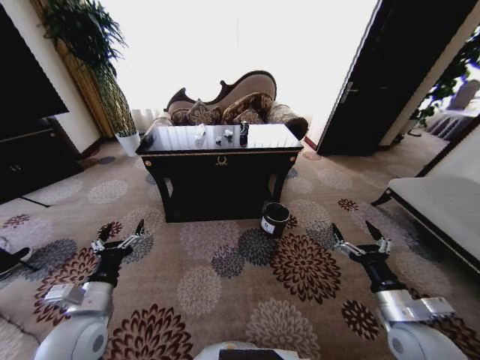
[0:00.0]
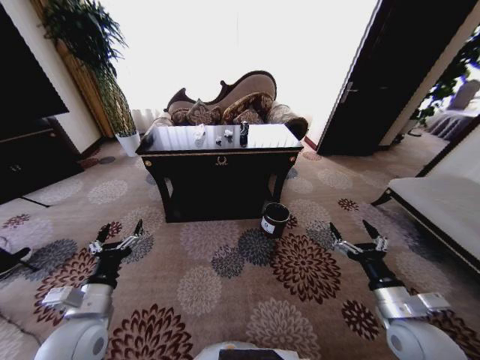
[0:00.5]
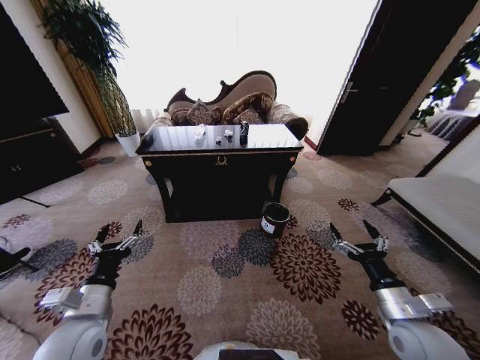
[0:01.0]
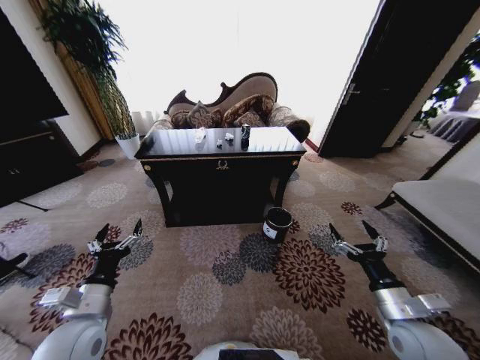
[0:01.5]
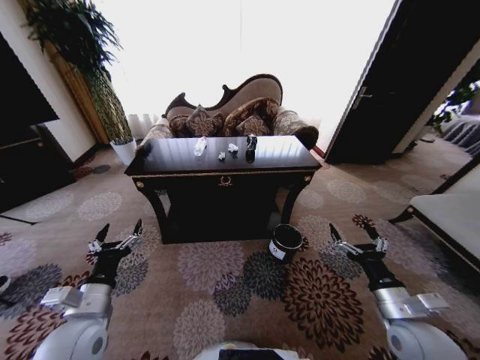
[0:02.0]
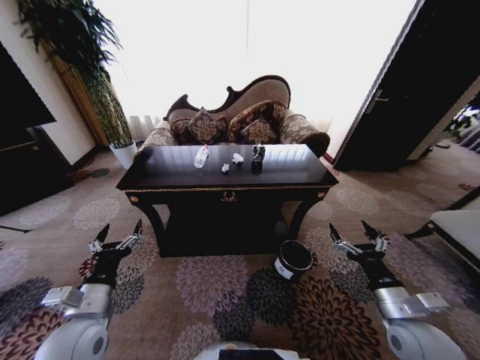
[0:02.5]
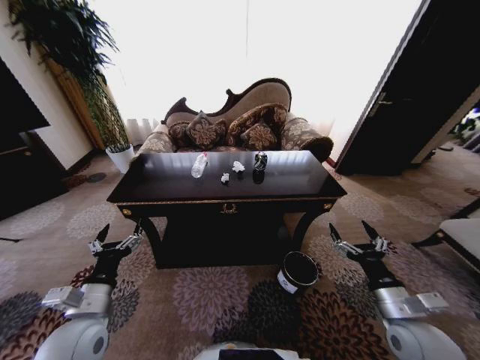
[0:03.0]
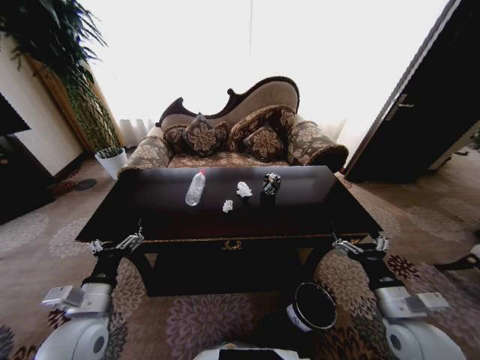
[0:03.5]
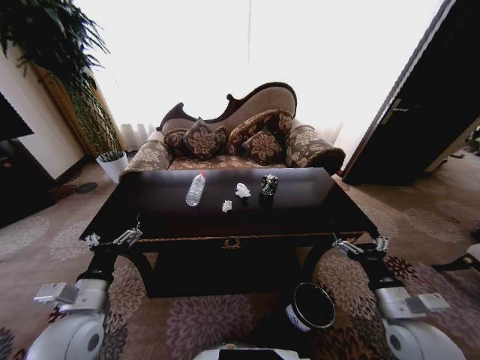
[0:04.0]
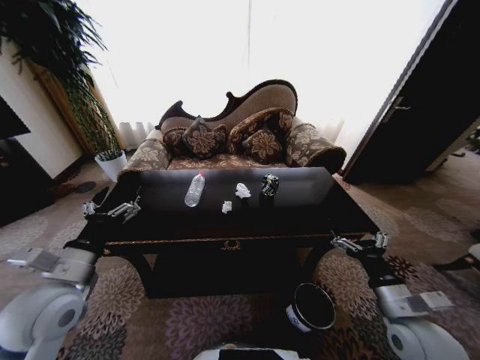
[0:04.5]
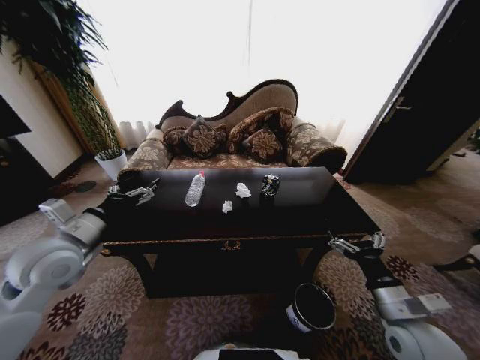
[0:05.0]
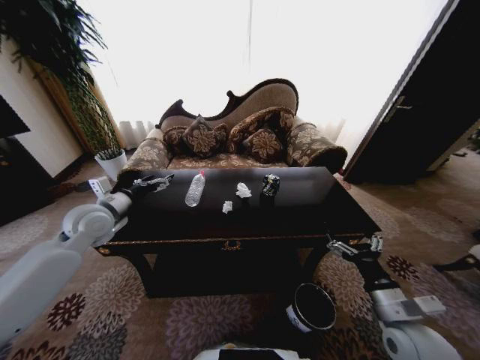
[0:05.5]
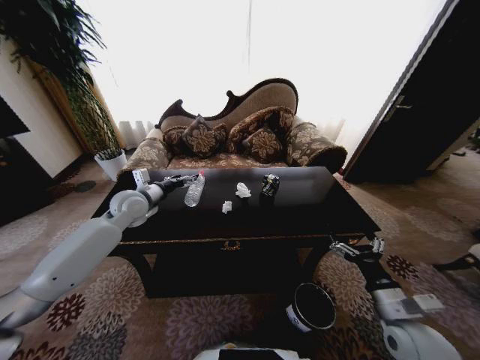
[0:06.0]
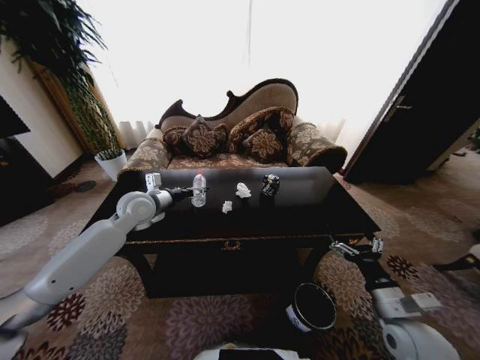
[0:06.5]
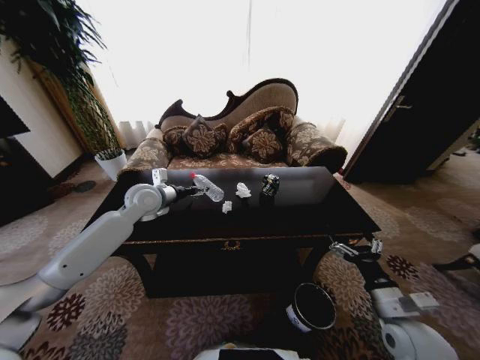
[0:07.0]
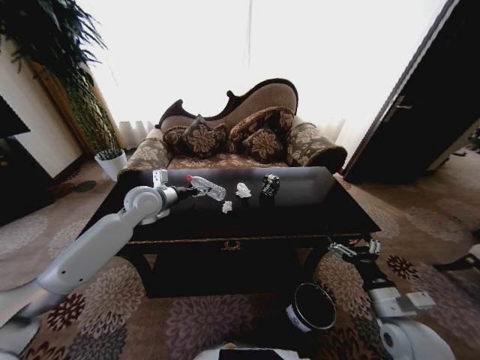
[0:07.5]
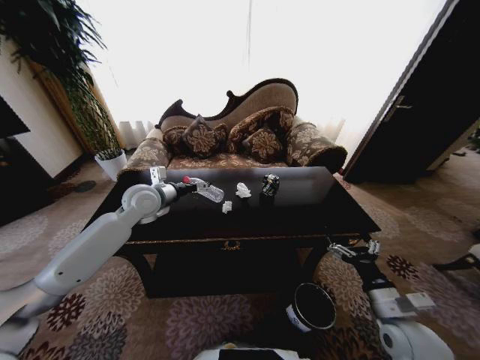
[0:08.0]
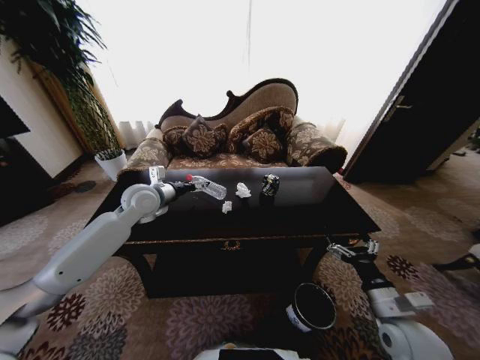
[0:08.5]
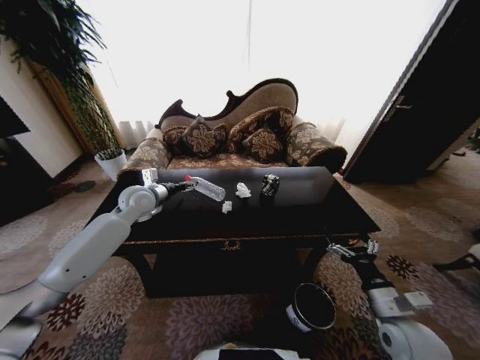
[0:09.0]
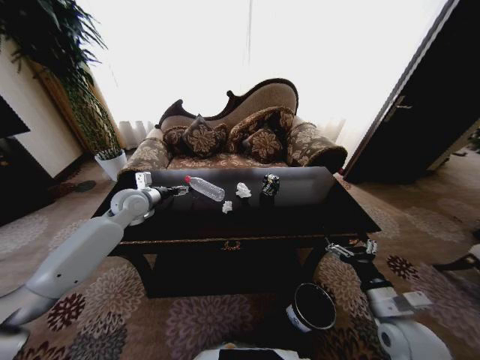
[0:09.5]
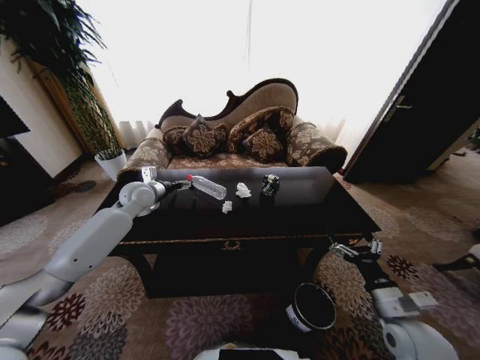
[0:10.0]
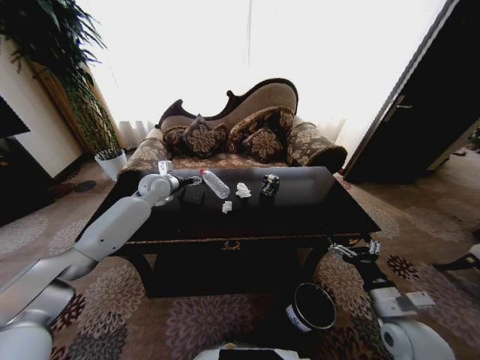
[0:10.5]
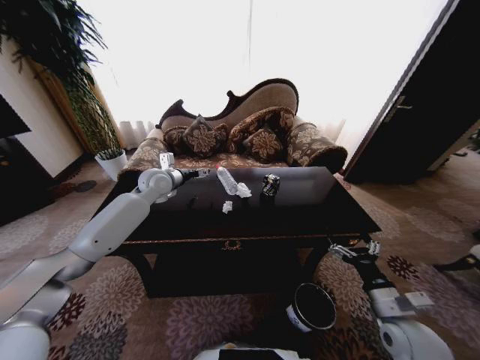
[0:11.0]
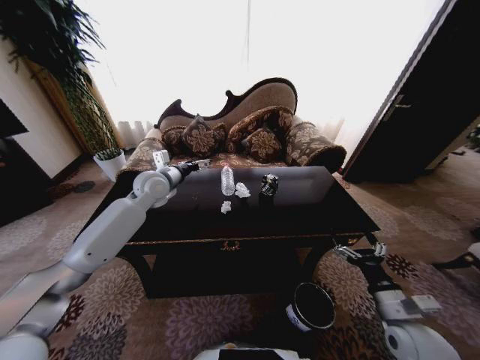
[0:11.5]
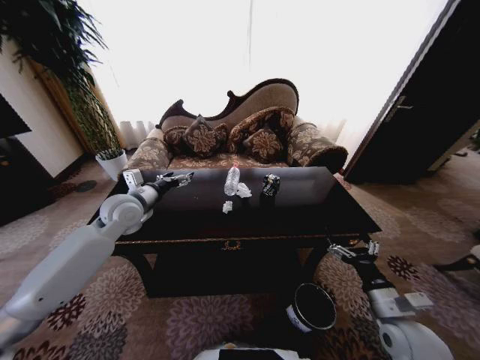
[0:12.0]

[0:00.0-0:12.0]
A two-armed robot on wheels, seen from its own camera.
Task of the whole recording: Move to the front of the table and place the trash on the table into the trash bin.
0:04.0 to 0:06.0: The left gripper shifts approximately 30 cm forward.
0:06.0 to 0:08.0: The left gripper changes place by about 5 cm.
0:08.0 to 0:10.0: The left gripper is displaced forward by approximately 5 cm.
0:10.0 to 0:12.0: The left gripper heads backward, covering roughly 10 cm.

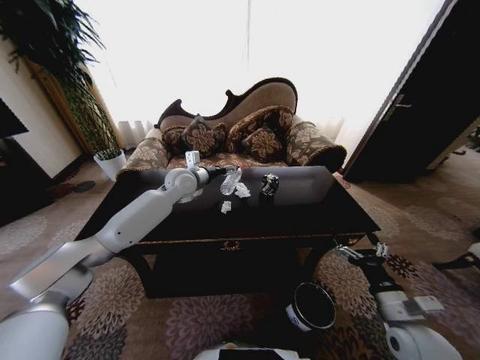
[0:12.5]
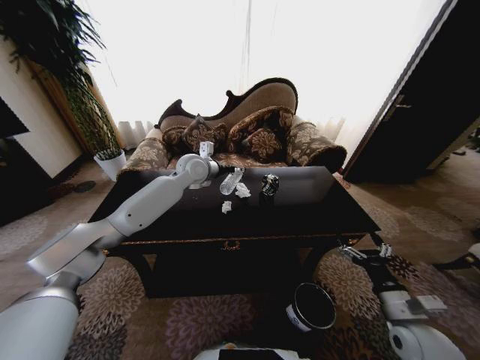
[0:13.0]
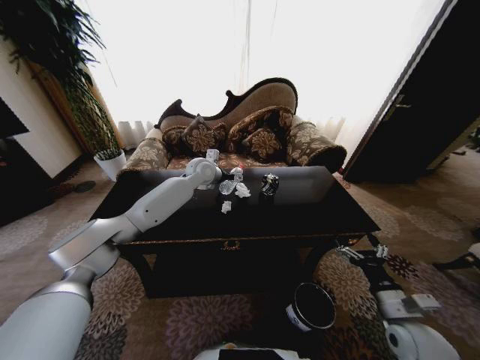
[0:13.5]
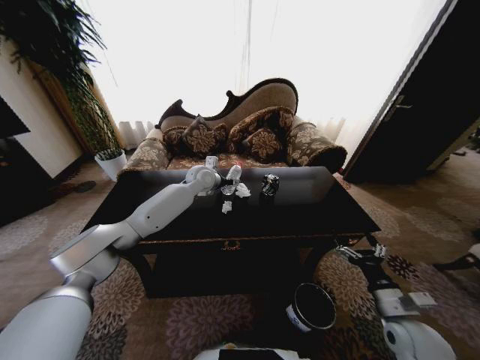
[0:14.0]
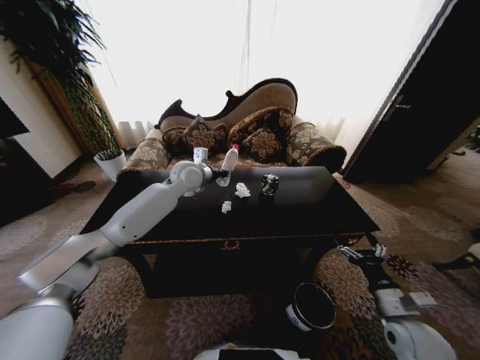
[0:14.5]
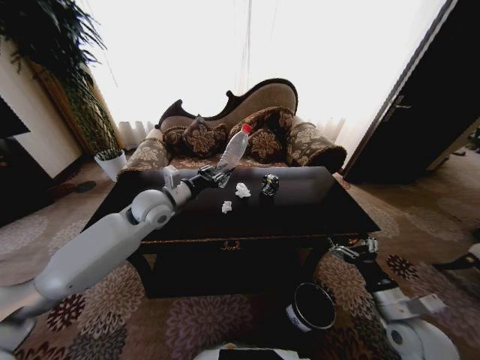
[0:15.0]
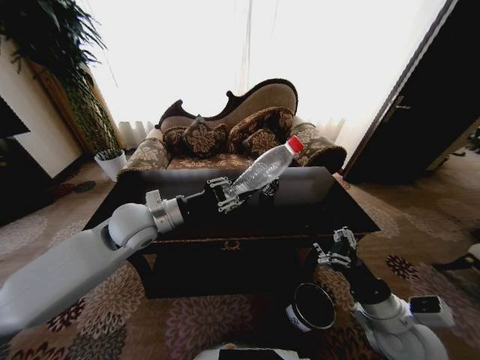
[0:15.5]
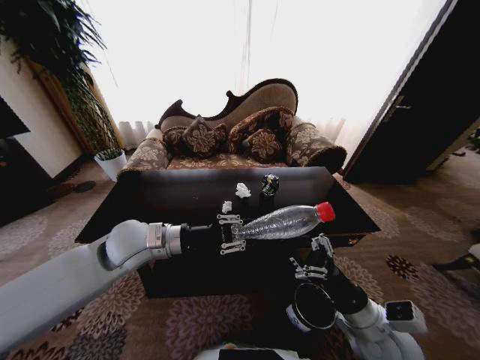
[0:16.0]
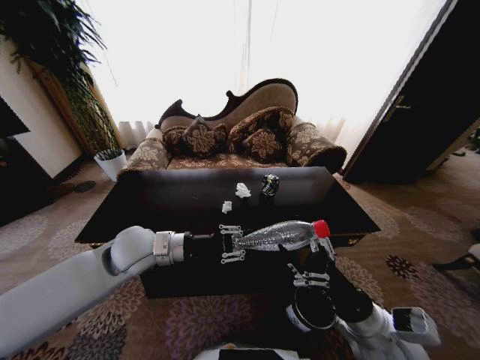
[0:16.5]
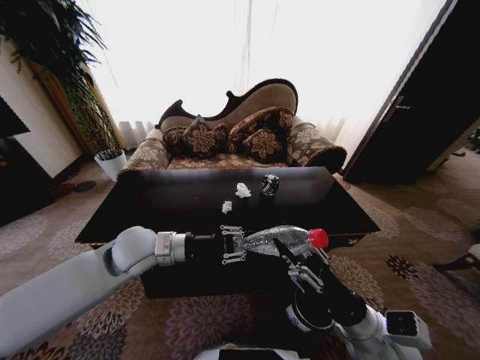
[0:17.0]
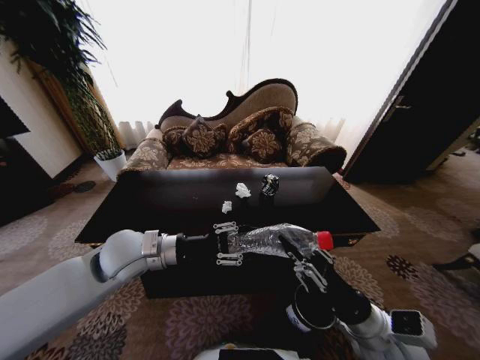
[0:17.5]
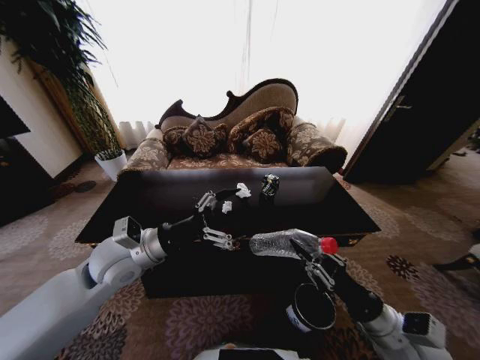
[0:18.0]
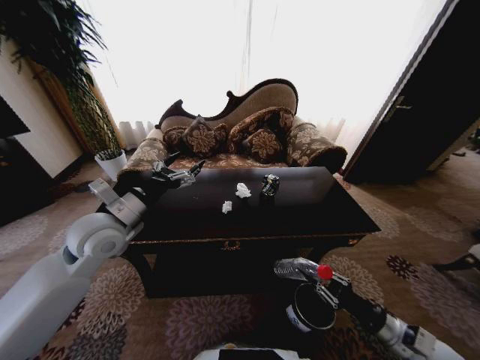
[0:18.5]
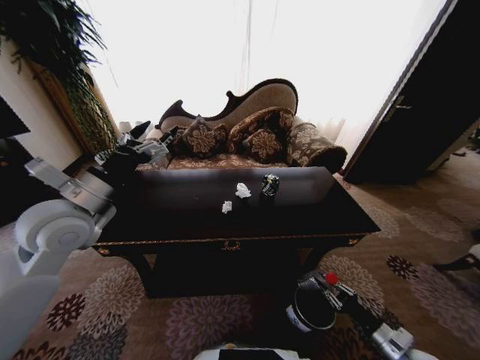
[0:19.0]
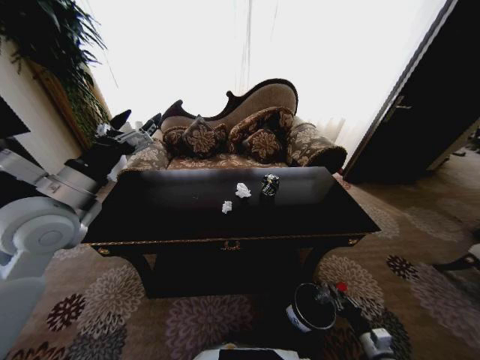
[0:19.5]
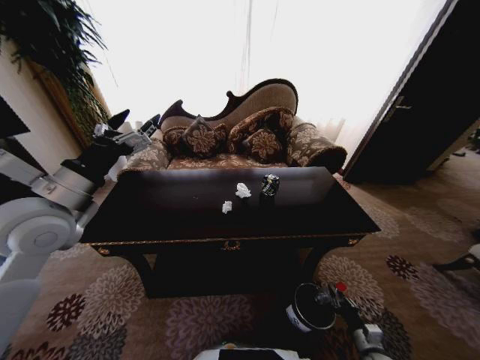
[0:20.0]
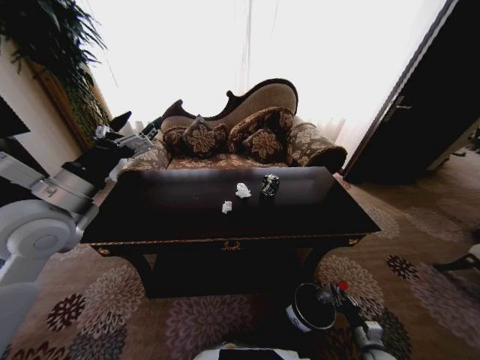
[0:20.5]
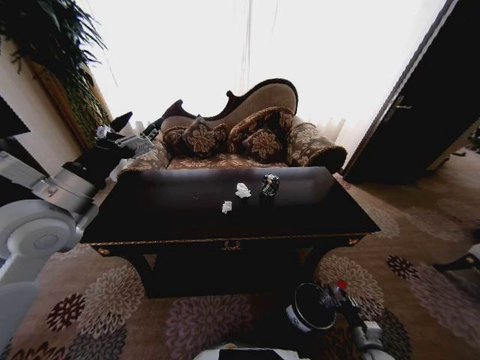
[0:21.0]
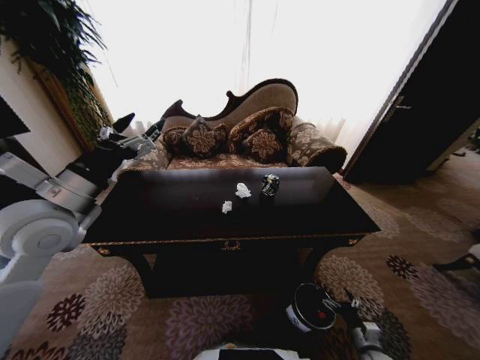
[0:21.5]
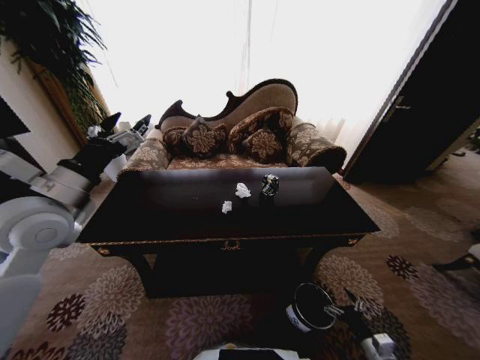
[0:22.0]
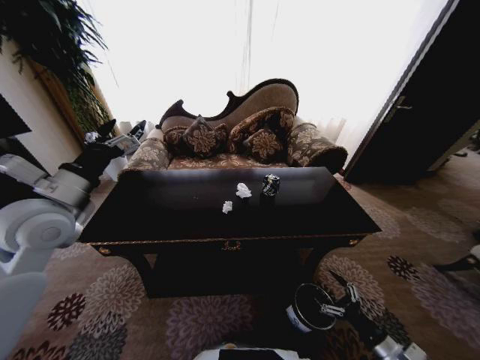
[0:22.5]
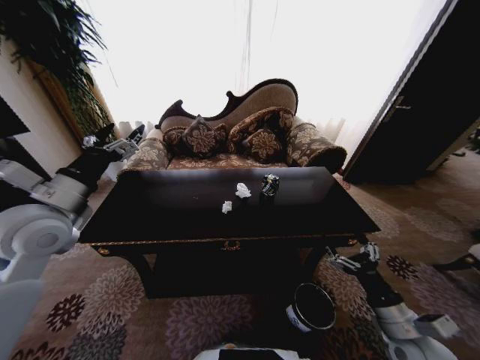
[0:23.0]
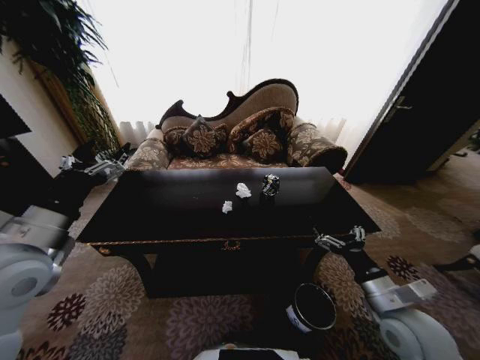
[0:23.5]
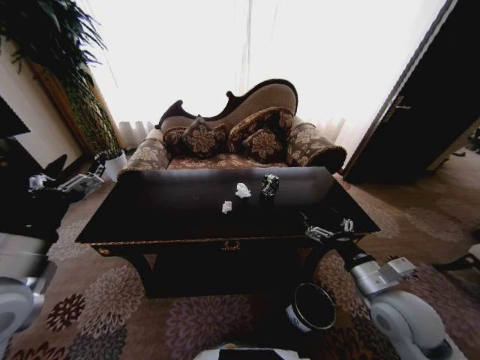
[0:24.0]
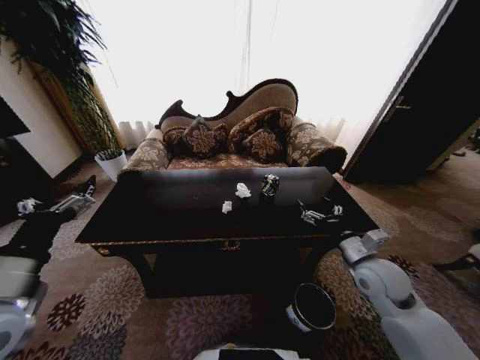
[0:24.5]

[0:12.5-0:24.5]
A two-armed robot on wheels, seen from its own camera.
Task of the whole recording: Move to the front of the table and place the trash on the table into the trash bin.
0:12.5 to 0:14.5: The left gripper goes up and down, some 5 cm each way, reversing 2 times, and closes.
0:14.5 to 0:16.5: The left gripper heads backward, covering approximately 20 cm. The right gripper travels to the left and upward by about 15 cm.
0:16.5 to 0:18.5: The right gripper shifts roughly 15 cm to the right and downward, and closes its fingers. Meanwhile the left gripper travels to the left by roughly 5 cm, and opens.
0:18.5 to 0:20.5: The left gripper is displaced upward by about 5 cm, while the right gripper travels downward by about 20 cm.
0:20.5 to 0:22.5: The right gripper shifts roughly 15 cm upward, and opens up.
0:22.5 to 0:24.5: The left gripper shifts some 15 cm backward and downward, while the right gripper moves forward, upward and to the left, roughly 25 cm.

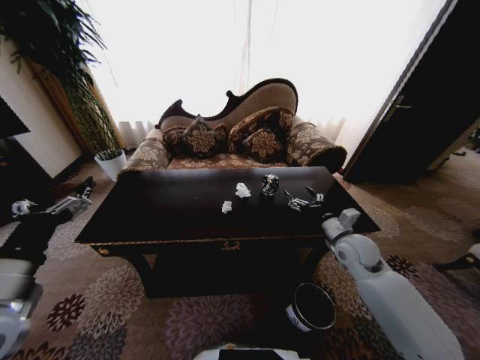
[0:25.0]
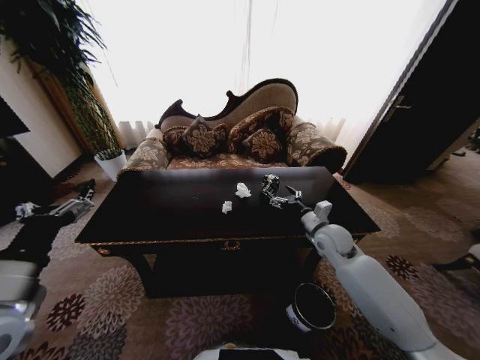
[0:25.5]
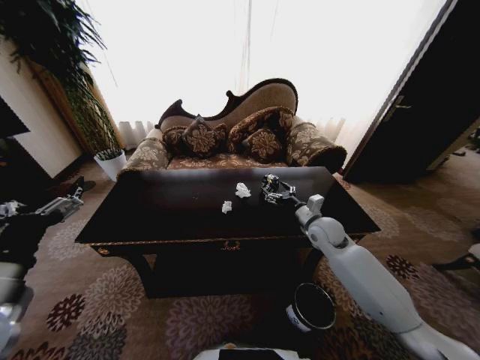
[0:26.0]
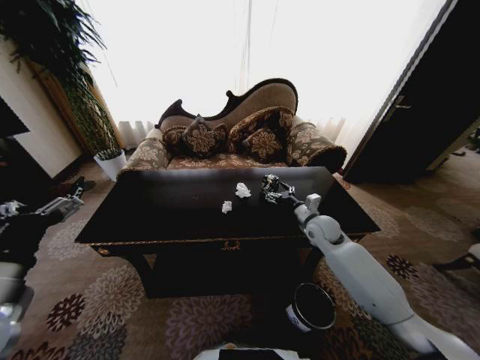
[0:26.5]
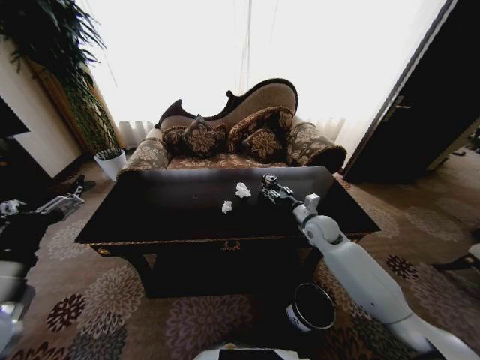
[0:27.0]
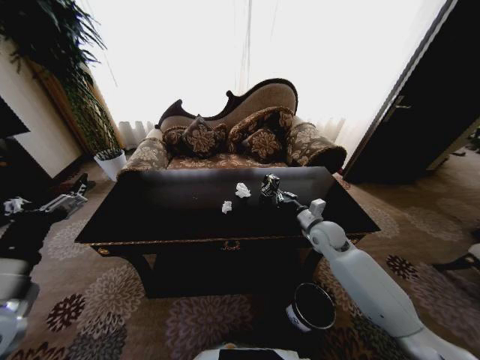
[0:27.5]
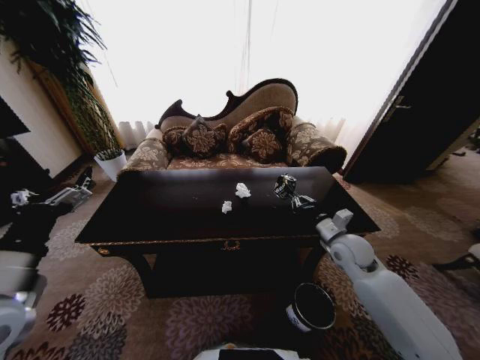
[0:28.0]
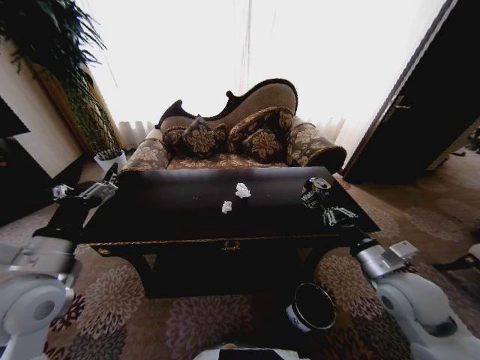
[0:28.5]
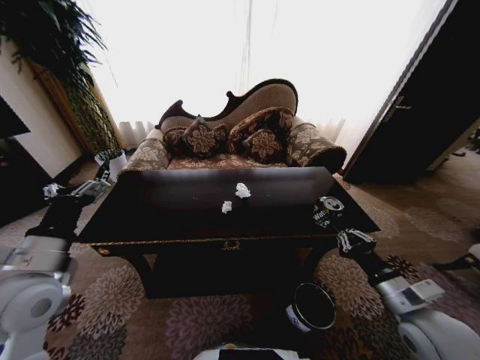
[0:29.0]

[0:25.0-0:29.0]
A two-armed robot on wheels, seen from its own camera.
Task of the whole recording: Move to the front of the table and place the trash on the table into the trash bin.
0:25.0 to 0:27.0: The right gripper shifts some 10 cm forward and to the left, and closes.
0:27.0 to 0:29.0: The left gripper moves forward, about 5 cm, while the right gripper goes approximately 30 cm backward, and closes up.
